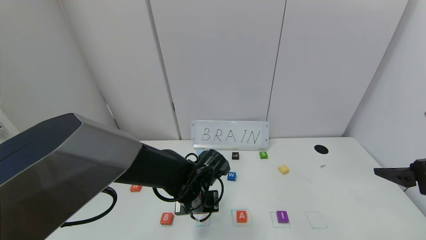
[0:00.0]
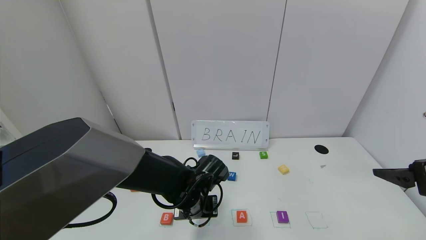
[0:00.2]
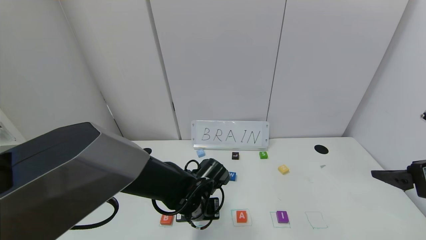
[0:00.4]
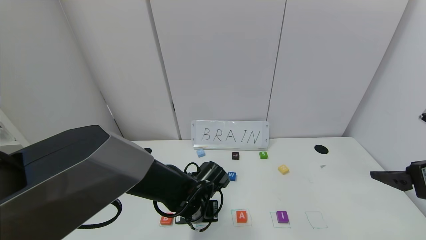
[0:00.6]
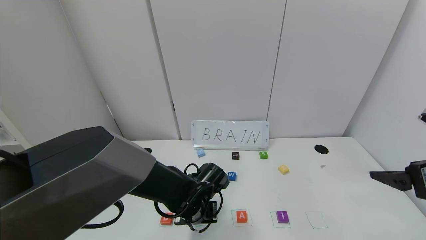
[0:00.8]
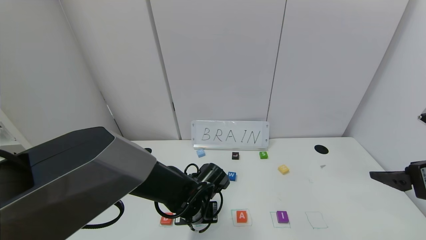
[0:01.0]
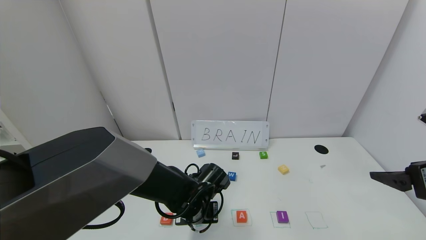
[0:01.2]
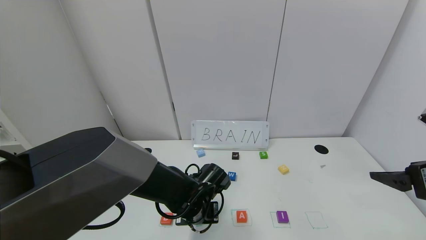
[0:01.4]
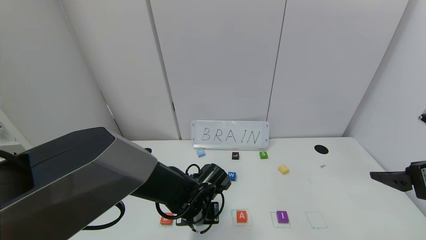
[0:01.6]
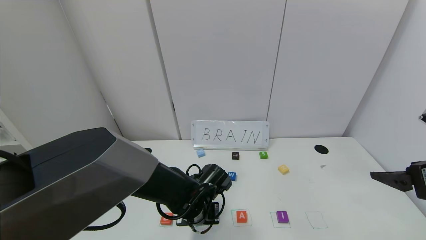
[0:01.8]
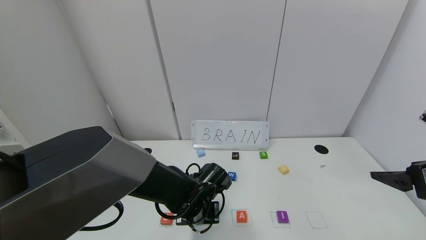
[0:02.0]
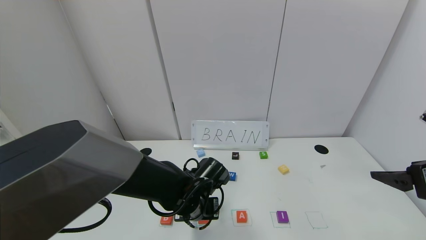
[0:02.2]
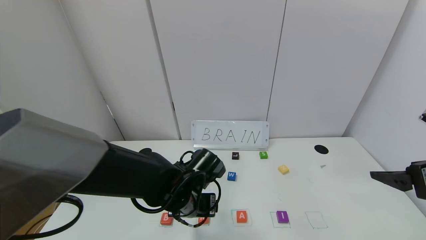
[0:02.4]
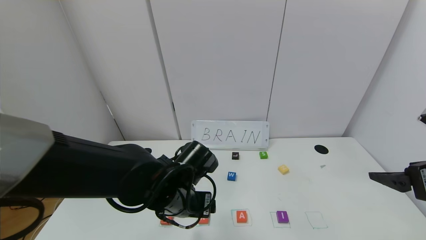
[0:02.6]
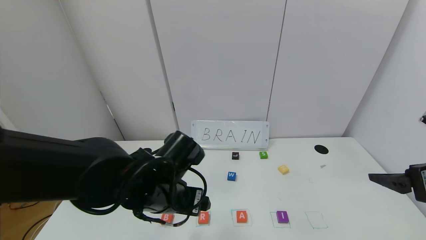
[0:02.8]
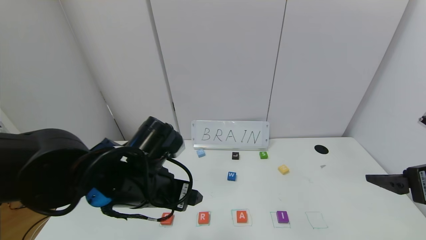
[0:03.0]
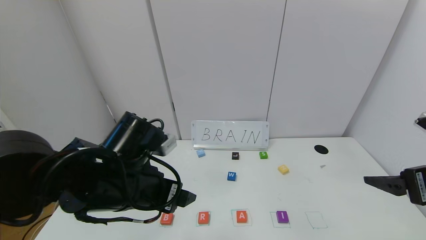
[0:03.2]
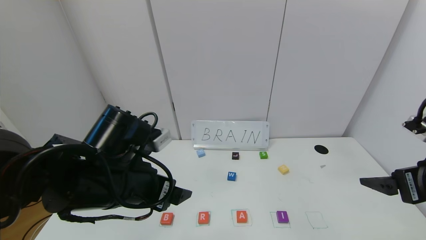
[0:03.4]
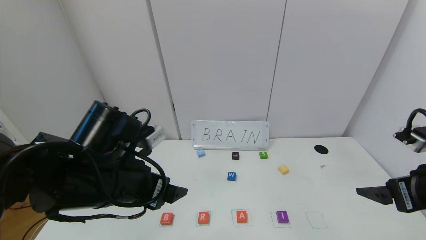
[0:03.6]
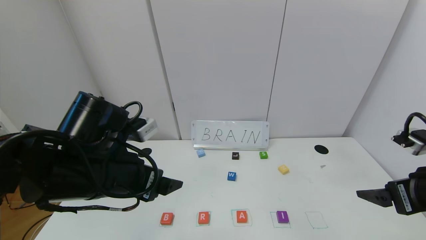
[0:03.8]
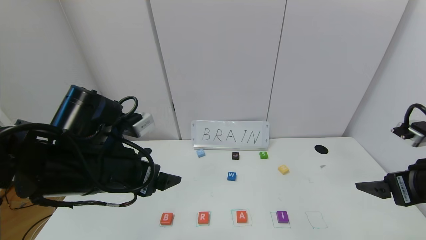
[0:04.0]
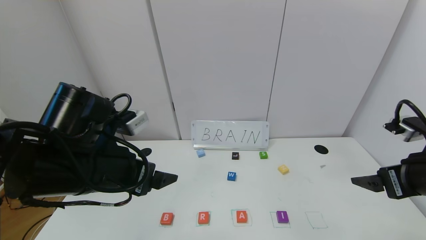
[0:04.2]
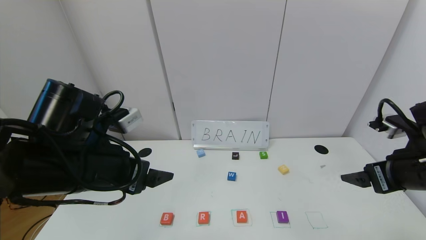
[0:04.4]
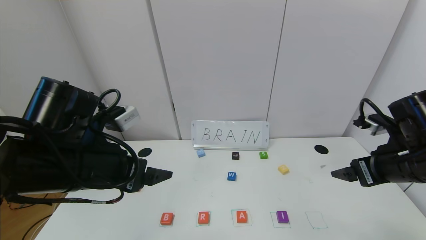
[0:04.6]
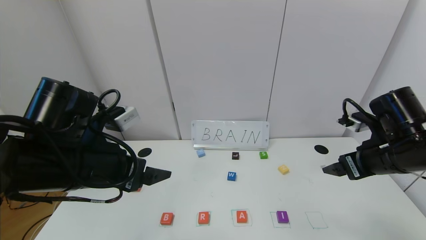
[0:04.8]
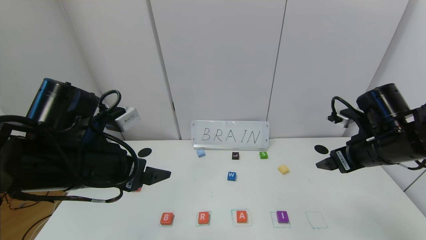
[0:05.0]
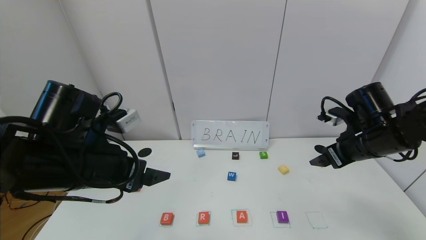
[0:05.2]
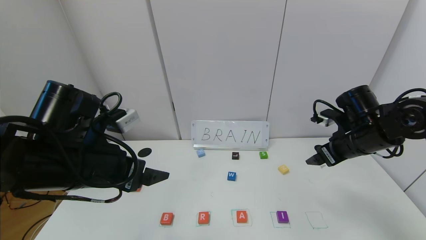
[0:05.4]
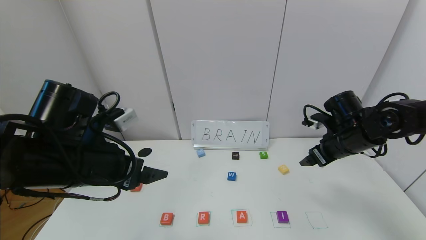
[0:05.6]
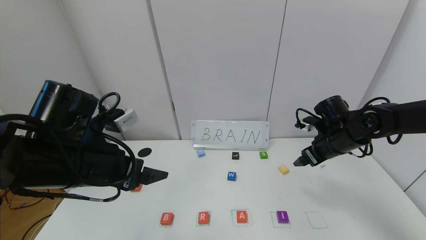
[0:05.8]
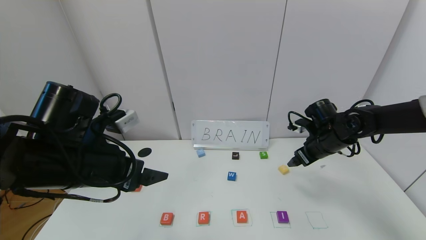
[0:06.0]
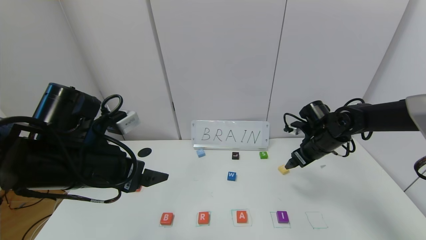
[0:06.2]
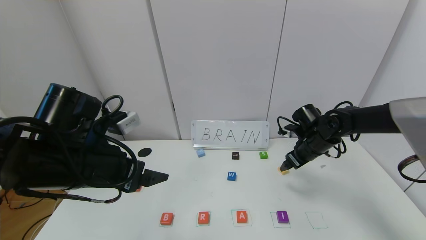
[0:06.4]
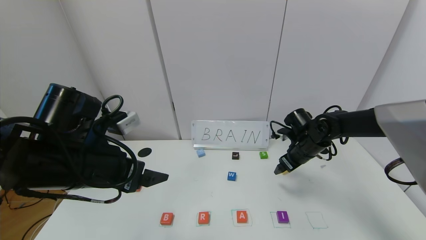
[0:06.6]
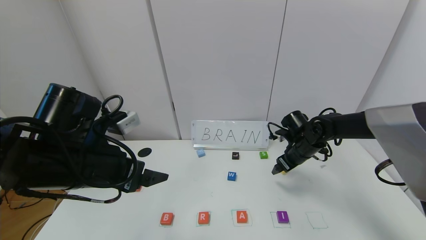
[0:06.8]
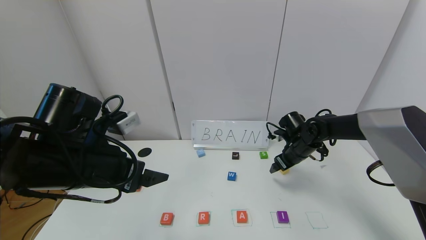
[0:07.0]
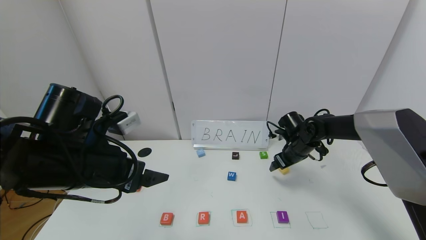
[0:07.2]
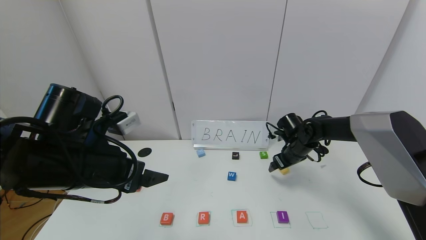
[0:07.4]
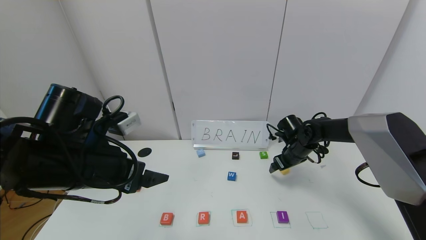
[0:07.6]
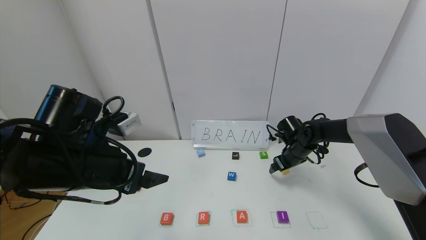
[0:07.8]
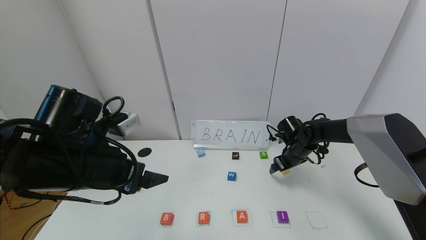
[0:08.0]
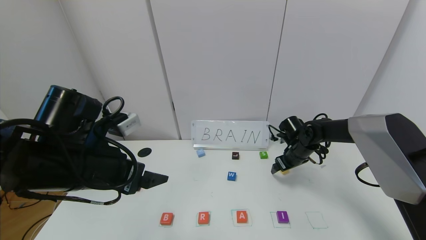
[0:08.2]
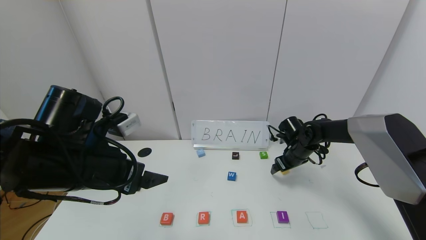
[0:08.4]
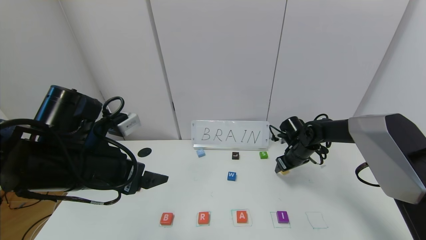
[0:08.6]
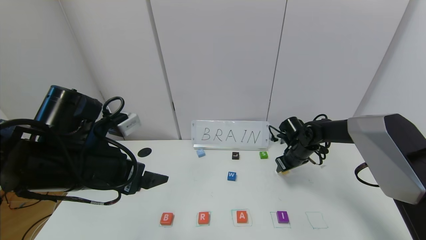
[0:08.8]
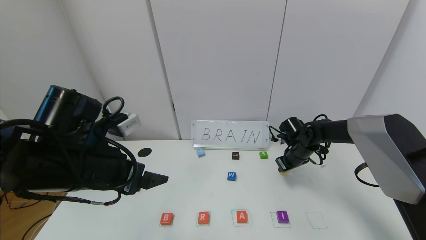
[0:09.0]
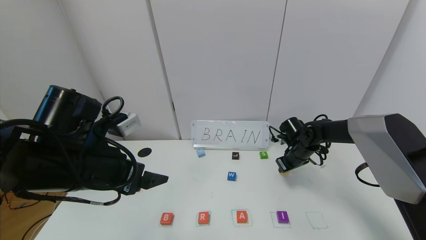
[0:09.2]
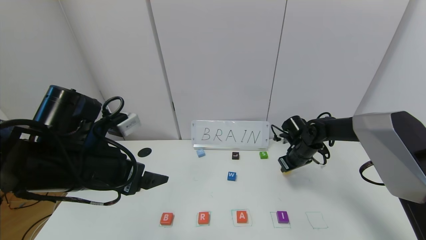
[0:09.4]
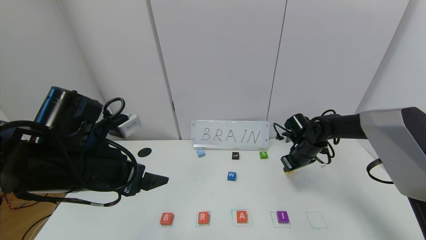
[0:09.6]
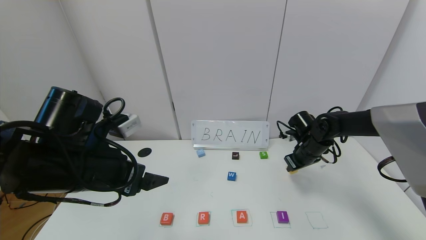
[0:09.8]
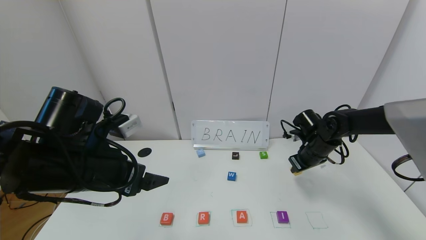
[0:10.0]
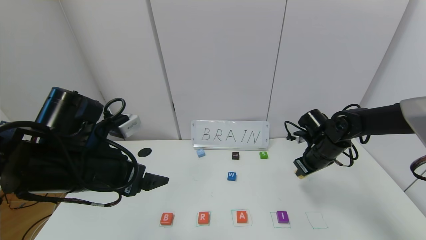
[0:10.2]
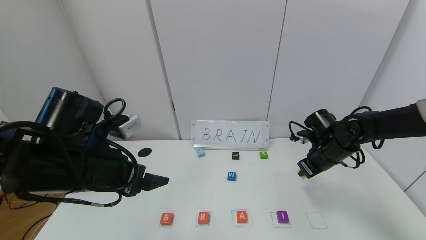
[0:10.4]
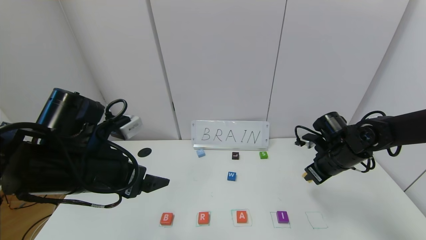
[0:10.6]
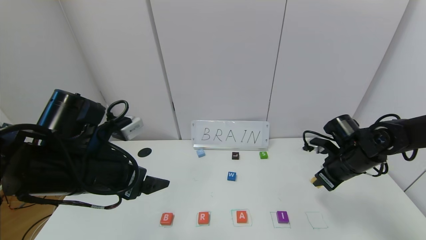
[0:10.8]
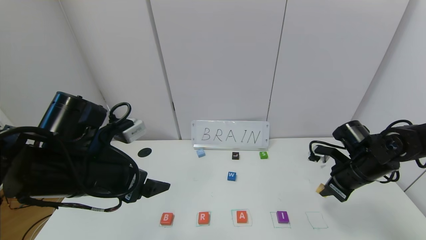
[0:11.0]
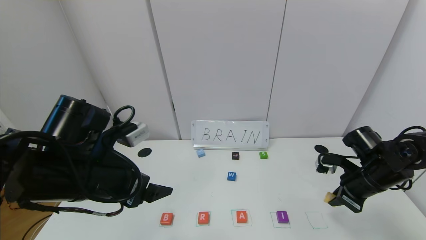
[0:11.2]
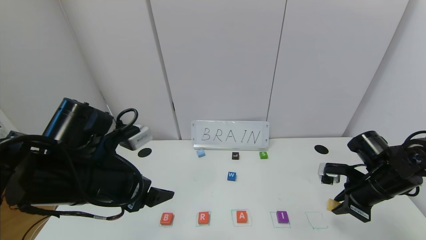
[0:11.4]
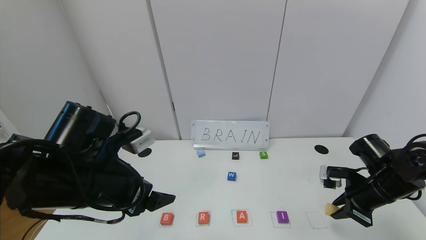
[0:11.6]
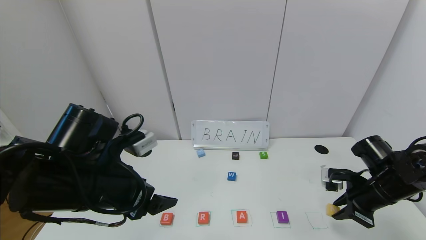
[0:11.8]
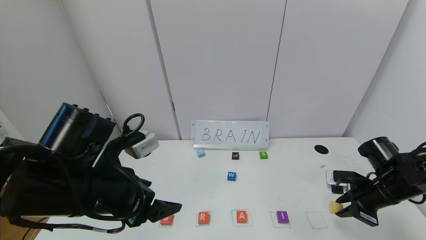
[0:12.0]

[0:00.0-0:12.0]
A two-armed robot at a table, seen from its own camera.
Task of the whole recording: use the gripper to find blocks with the letters b, a, a, and i on the table and arrange them into BAAI, then find r and N and turn the arranged baai into brian.
Step, 0:00.0 to 0:02.0: Place the block R in the second location.
0:00.0 to 0:01.6: The grippers stay close to where they were, moving slightly.
0:01.6 to 0:03.0: The left gripper is displaced upward and to the left by some 15 cm, and opens.
0:03.0 to 0:04.4: The left gripper shifts some 5 cm to the left. Meanwhile the right gripper travels forward by approximately 5 cm.
0:04.4 to 0:06.0: The right gripper is displaced forward and downward by roughly 20 cm.
0:06.0 to 0:07.6: The right gripper heads downward and forward, covering roughly 10 cm.
0:07.6 to 0:09.0: The right gripper closes its fingers.
0:09.0 to 0:10.4: The right gripper moves backward and upward, roughly 10 cm.
0:10.4 to 0:12.0: The right gripper goes approximately 10 cm backward and to the right.

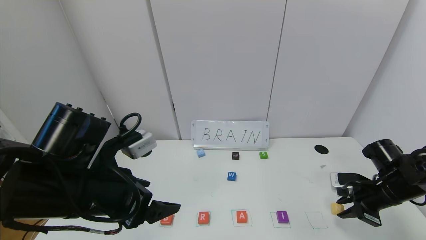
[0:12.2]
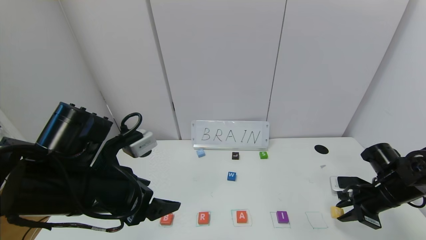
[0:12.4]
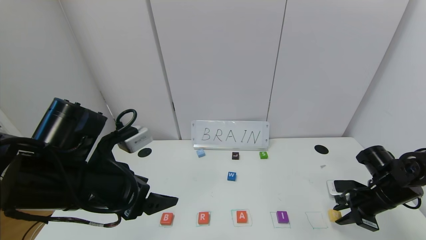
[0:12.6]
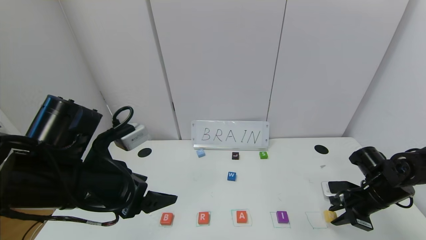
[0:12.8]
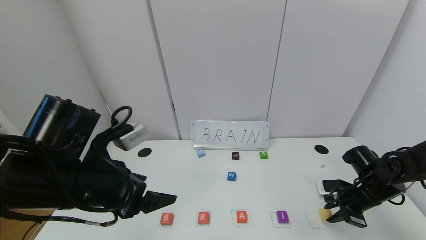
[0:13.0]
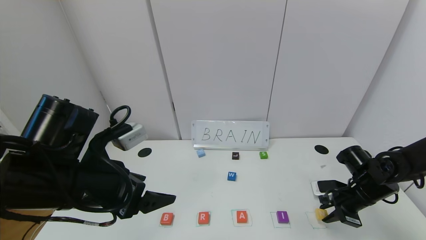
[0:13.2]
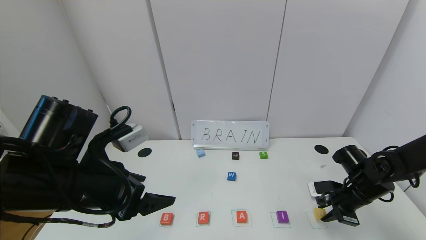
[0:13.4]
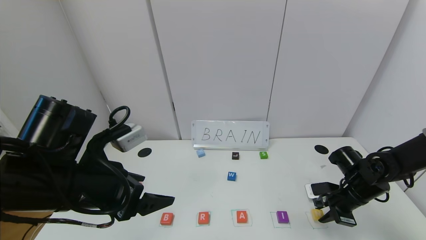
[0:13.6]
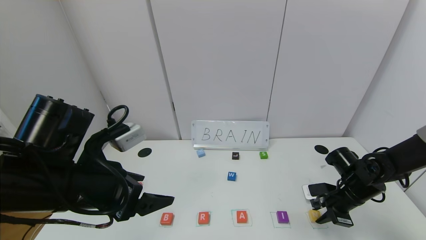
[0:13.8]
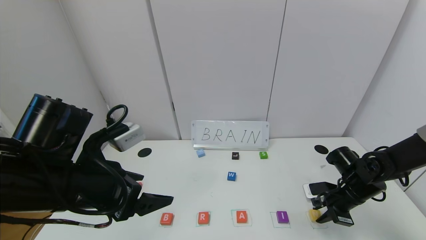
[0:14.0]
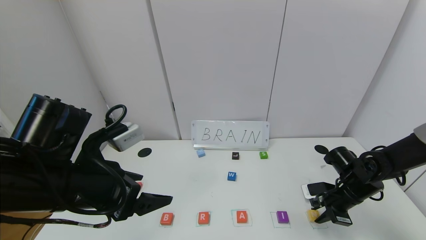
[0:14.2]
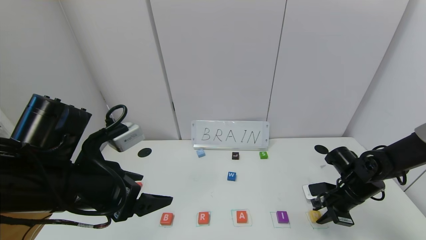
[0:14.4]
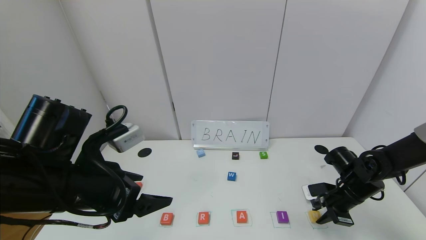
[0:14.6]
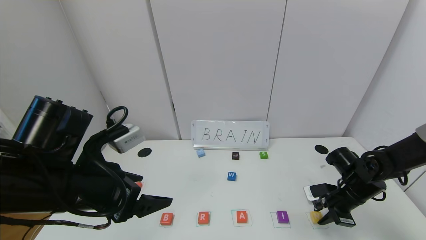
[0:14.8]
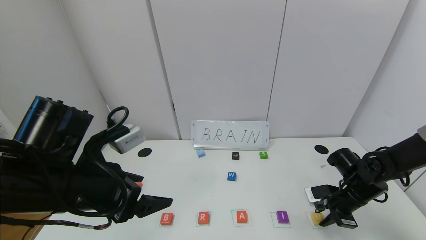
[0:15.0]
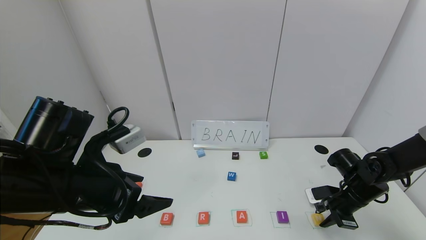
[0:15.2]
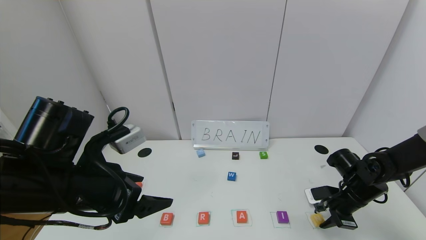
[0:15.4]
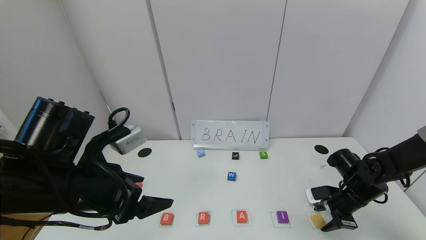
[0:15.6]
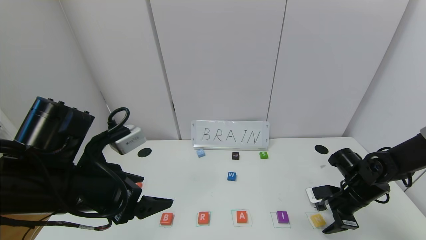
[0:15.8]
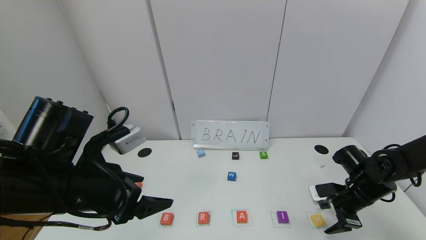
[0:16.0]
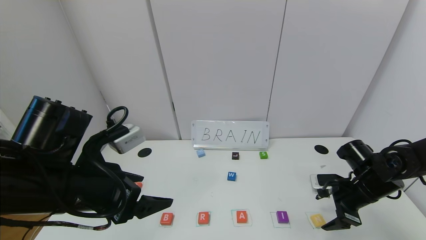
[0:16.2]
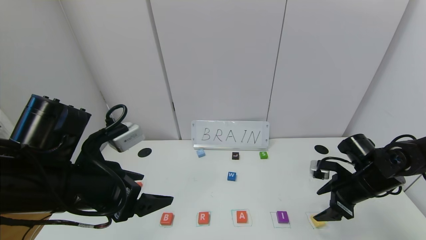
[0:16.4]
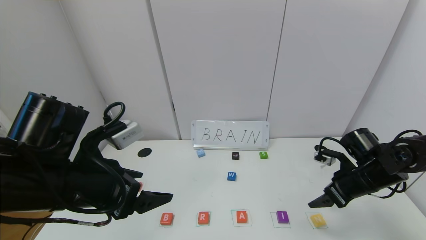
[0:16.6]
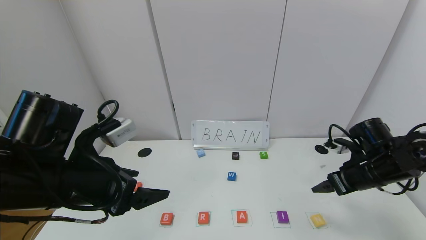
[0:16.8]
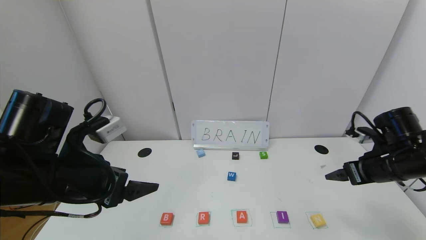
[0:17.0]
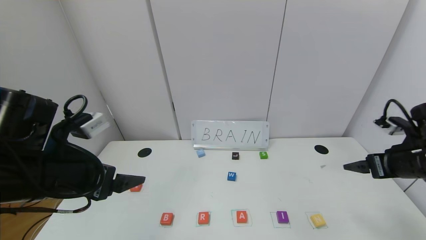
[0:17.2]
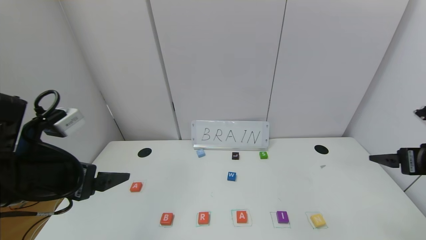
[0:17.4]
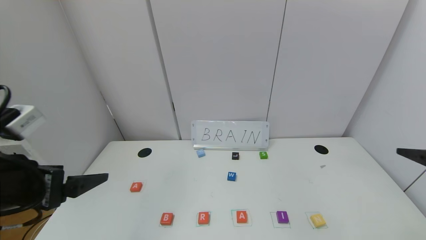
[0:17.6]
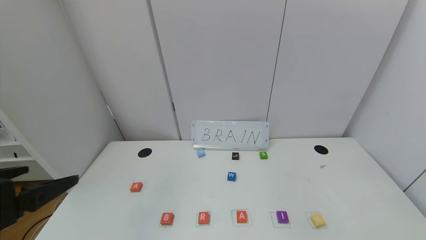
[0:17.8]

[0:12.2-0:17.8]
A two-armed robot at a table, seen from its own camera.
Task of the whole recording: use the gripper to find blocks with the letters b, a, a, and i on the table and arrange them into BAAI, then find r and N and turn the arranged baai into brian.
Step, 0:12.2 to 0:15.6: Place the block N in the fifth location.
0:12.2 to 0:13.6: The right gripper ends up about 5 cm from where it was.
0:13.6 to 0:15.0: Neither gripper changes place.
0:15.0 to 0:16.4: The right gripper heads upward, covering roughly 5 cm, and opens.
0:16.4 to 0:17.8: The right gripper goes approximately 25 cm backward and upward; the left gripper shifts approximately 15 cm backward and to the left.
